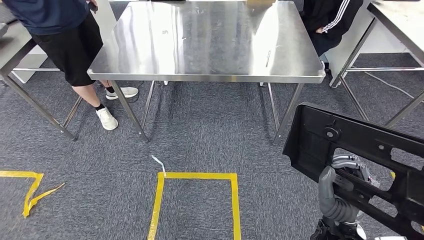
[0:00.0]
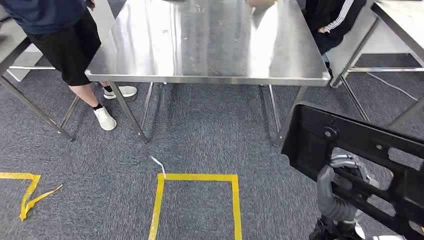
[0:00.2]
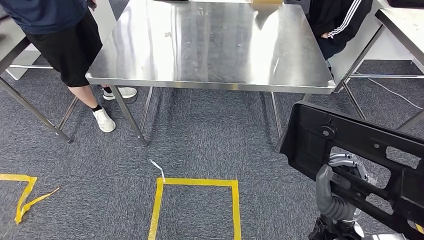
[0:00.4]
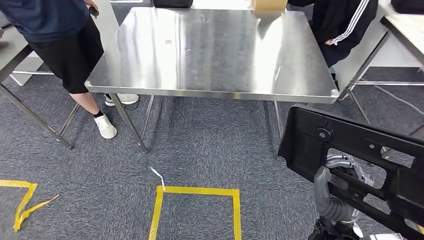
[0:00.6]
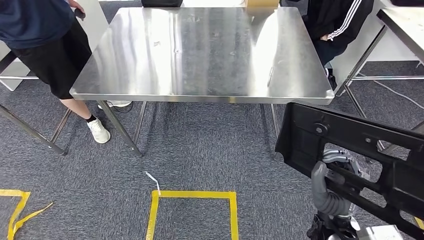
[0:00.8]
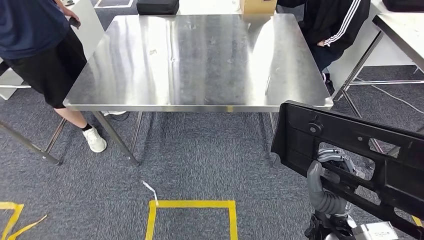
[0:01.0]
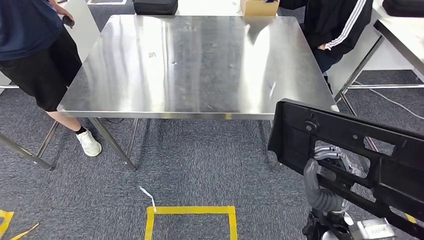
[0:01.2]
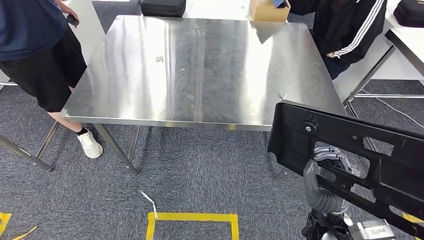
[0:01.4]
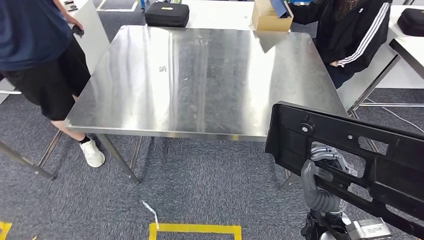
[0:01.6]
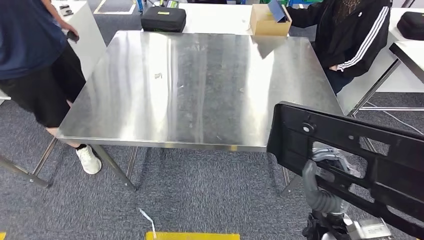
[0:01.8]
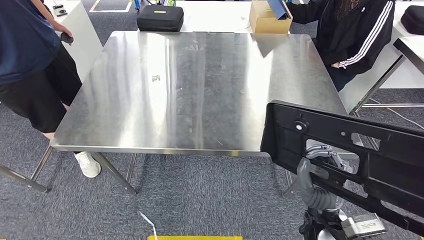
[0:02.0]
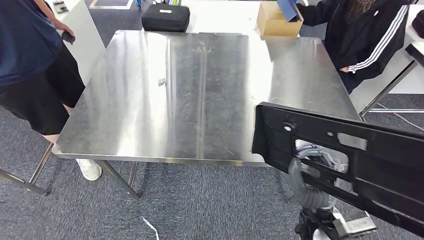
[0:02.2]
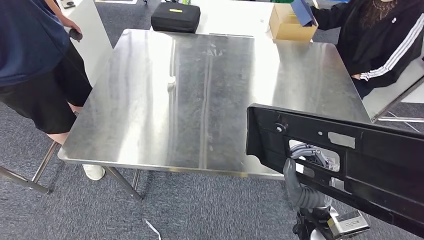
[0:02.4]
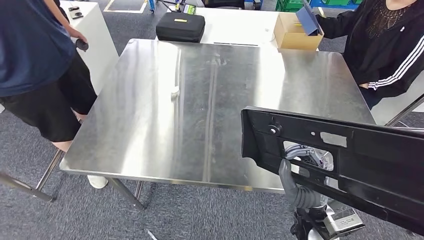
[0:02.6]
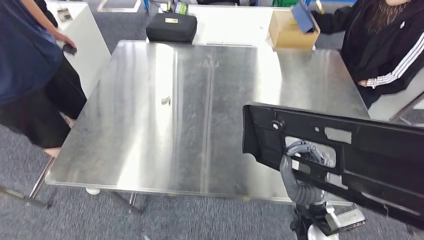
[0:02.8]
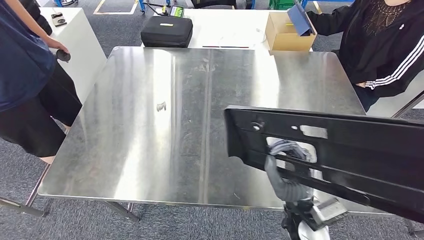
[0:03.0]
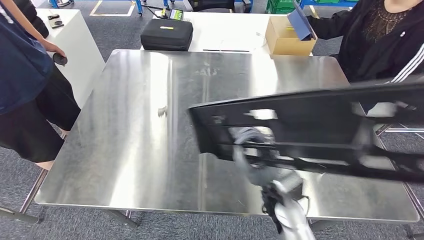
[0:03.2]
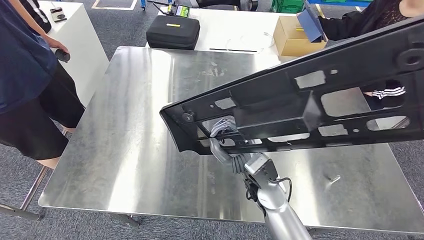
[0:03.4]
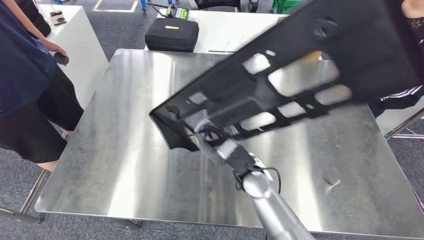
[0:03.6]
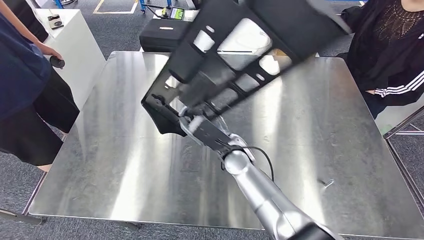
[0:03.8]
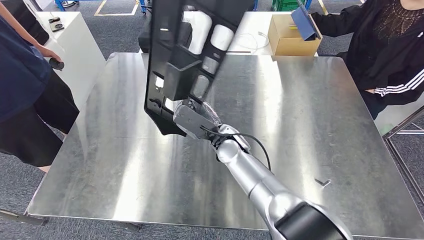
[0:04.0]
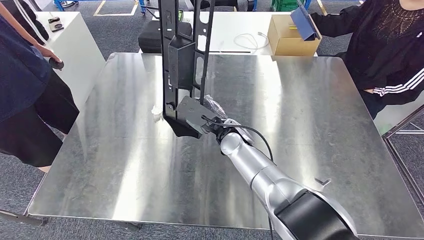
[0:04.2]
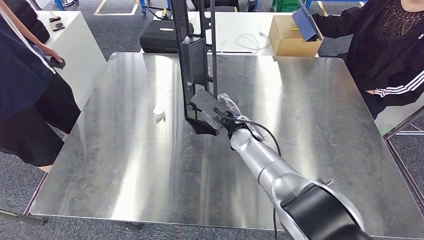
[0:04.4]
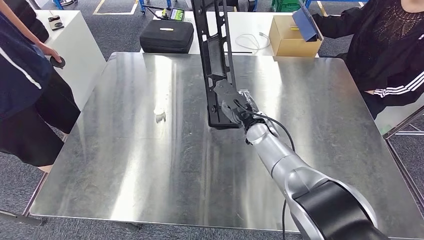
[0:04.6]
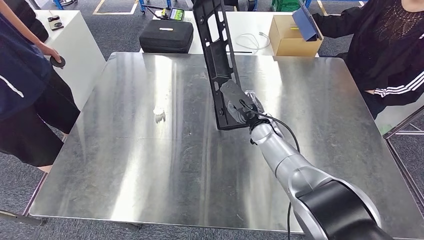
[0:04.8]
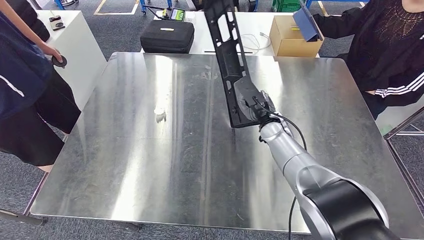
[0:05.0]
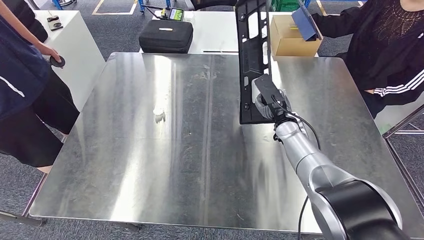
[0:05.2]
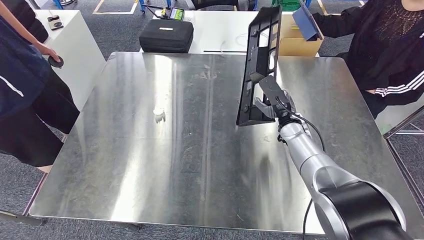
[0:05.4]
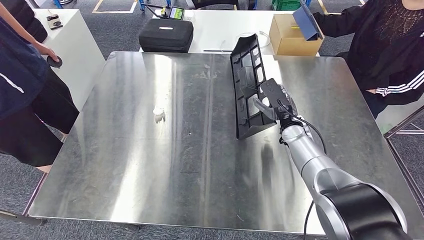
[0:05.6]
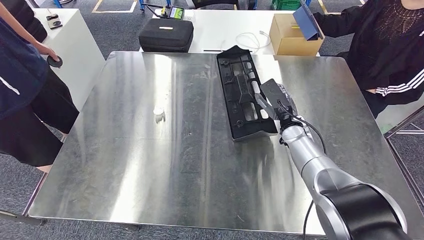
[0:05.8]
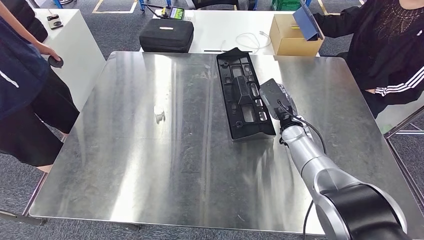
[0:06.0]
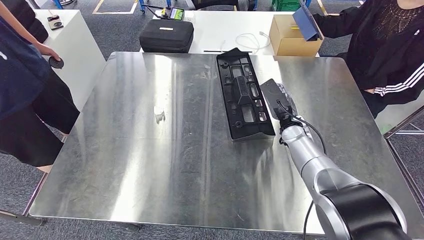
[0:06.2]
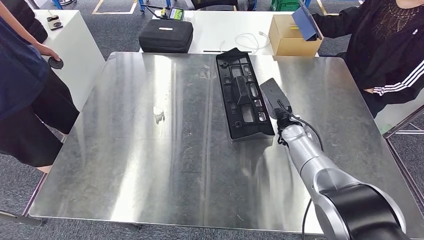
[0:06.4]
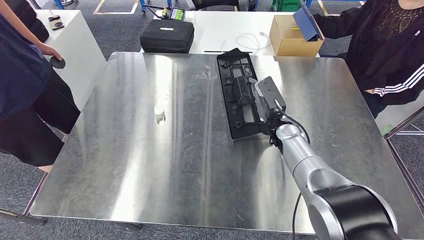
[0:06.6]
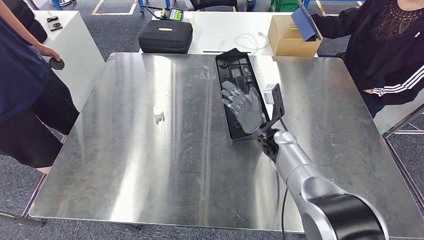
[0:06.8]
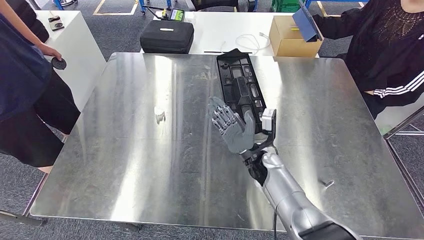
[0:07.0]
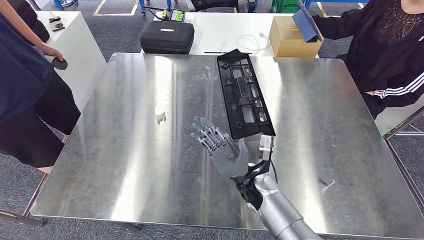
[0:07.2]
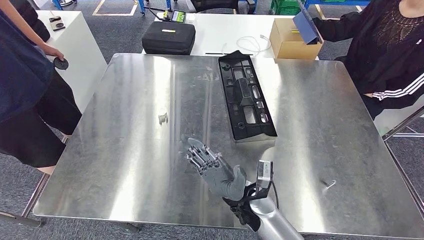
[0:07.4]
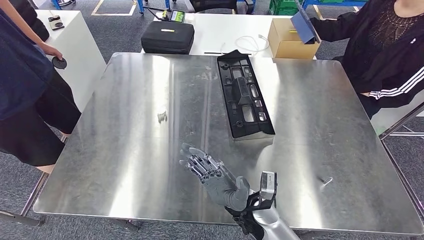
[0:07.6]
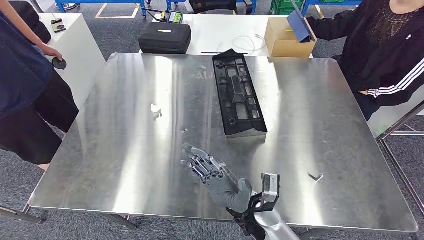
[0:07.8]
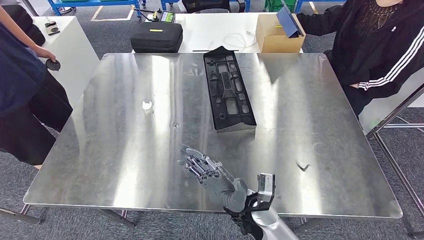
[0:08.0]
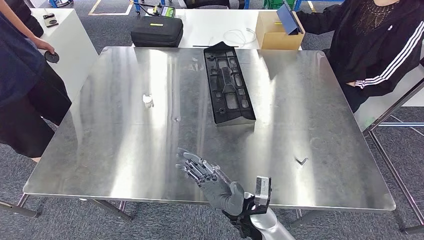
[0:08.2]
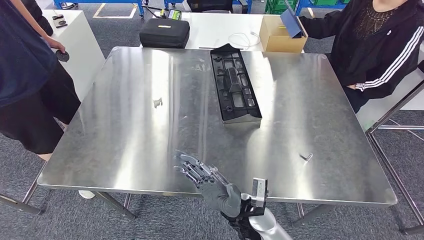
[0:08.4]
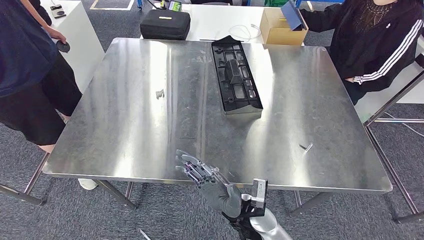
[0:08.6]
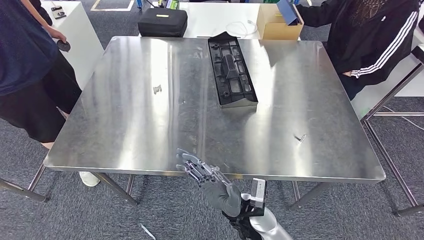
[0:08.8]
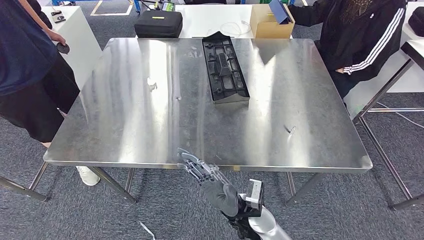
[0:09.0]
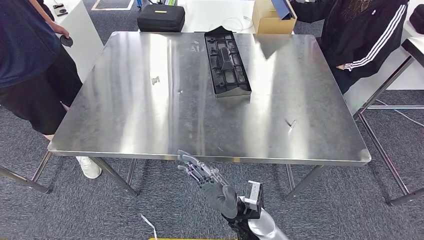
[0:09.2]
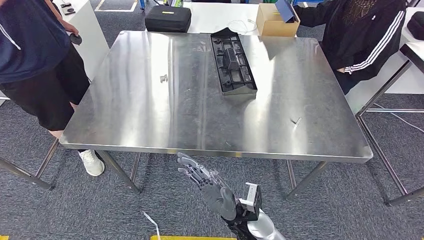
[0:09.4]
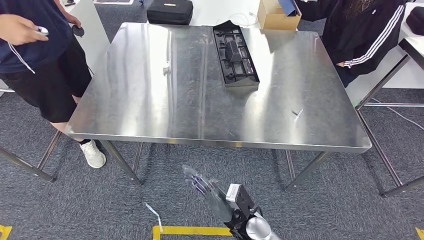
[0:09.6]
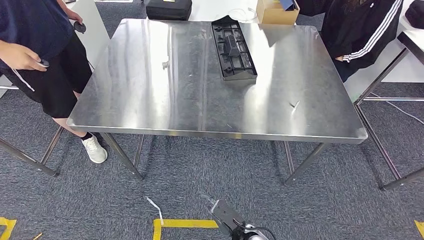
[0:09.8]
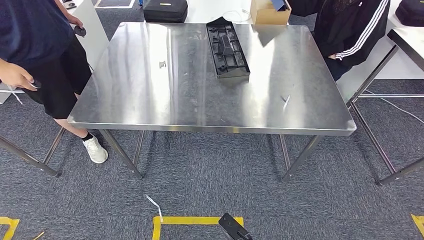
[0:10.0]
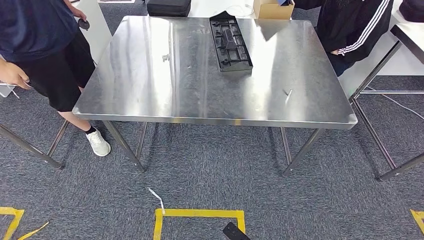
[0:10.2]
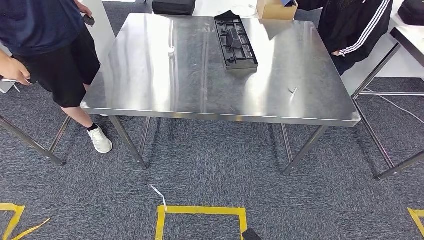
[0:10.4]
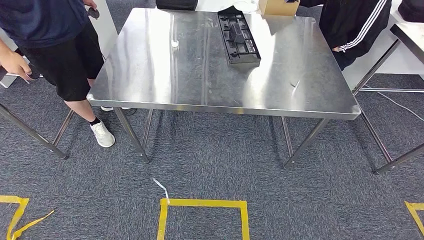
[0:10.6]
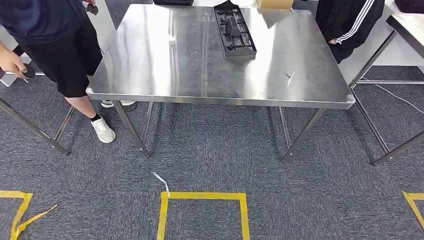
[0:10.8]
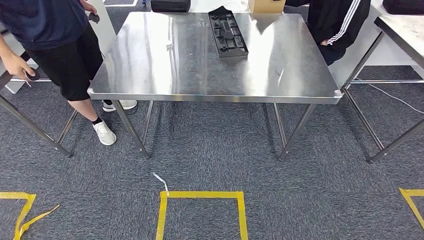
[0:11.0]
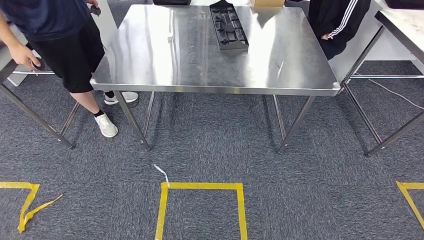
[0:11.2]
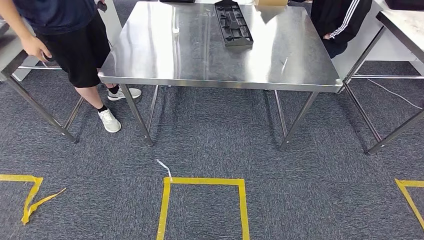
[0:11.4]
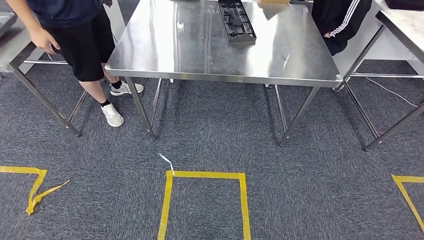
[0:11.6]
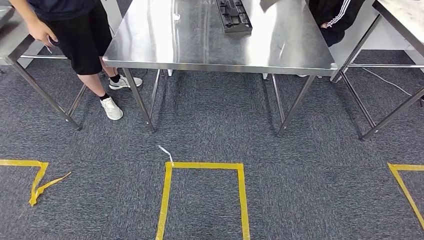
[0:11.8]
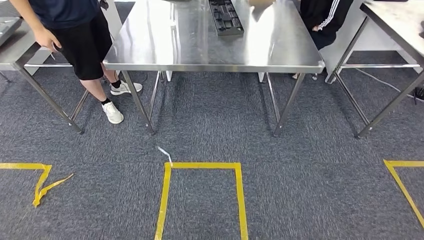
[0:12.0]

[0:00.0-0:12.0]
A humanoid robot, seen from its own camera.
Step, 0:00.8 to 0:10.8: Insert the large material into the corresponding hole on the workbench.

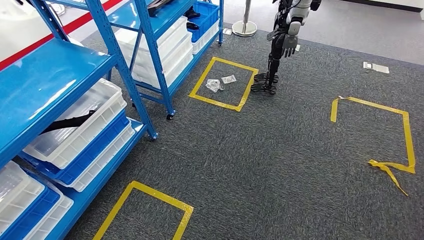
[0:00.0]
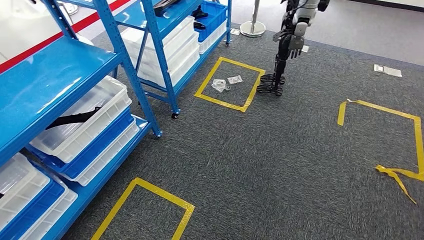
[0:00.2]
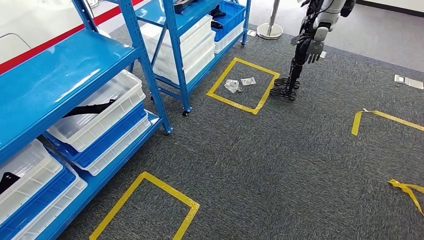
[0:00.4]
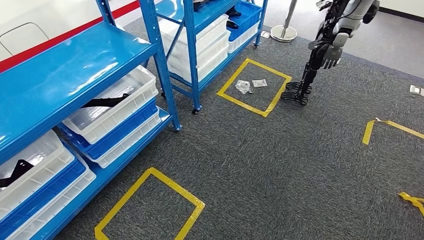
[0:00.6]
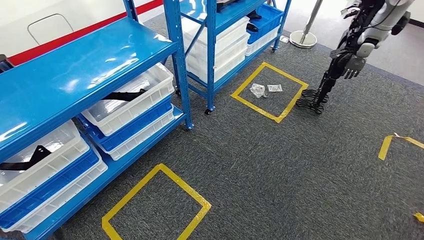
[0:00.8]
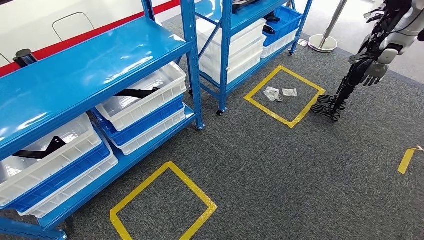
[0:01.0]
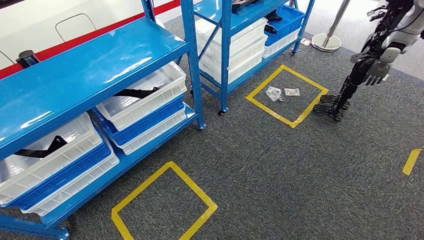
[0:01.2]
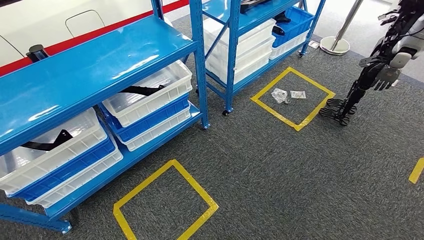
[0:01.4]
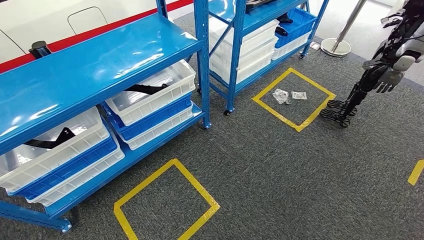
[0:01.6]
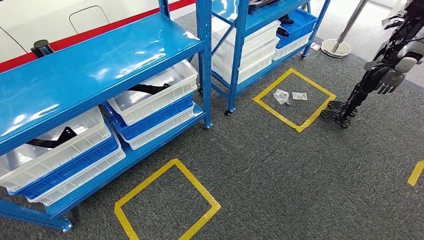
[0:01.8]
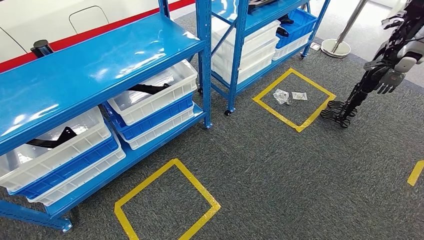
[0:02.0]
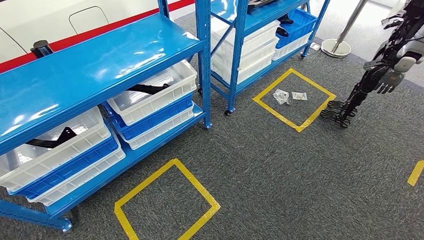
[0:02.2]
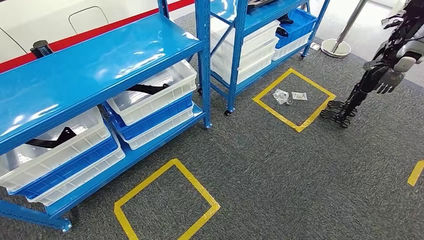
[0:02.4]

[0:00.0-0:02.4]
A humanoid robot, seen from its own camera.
Step, 0:00.0 to 0:02.2: Move to the initial position of the shelf.
